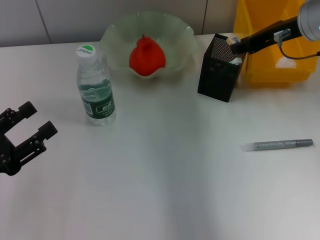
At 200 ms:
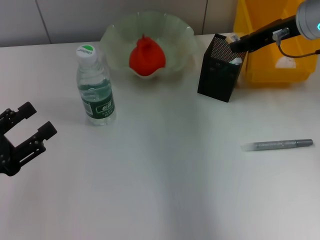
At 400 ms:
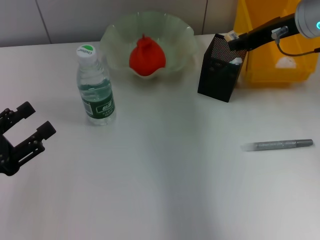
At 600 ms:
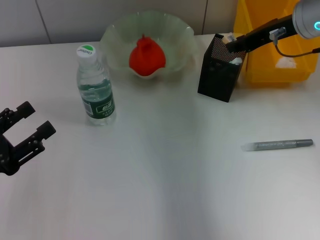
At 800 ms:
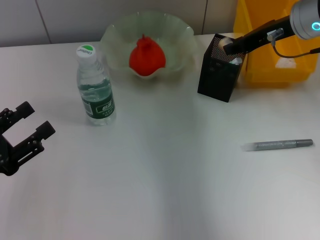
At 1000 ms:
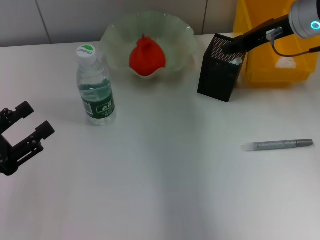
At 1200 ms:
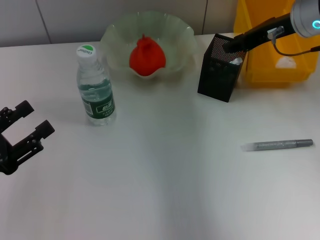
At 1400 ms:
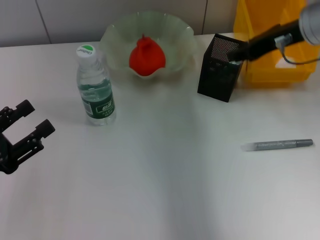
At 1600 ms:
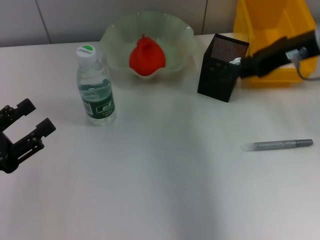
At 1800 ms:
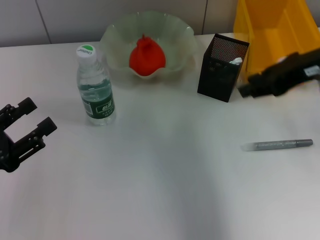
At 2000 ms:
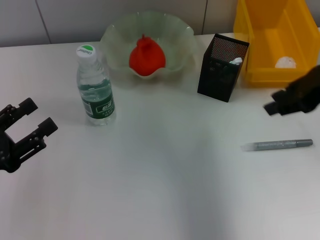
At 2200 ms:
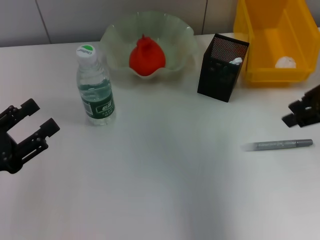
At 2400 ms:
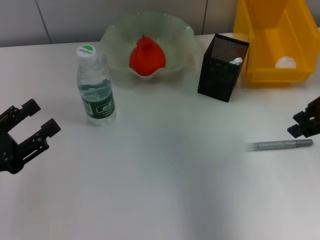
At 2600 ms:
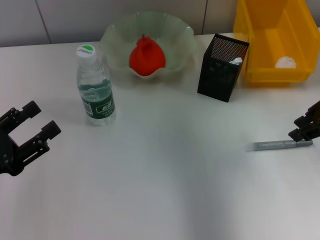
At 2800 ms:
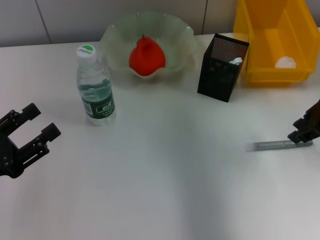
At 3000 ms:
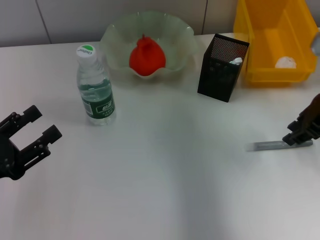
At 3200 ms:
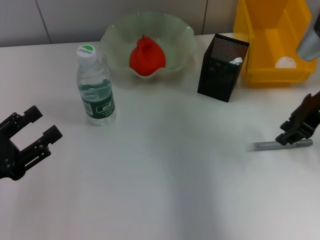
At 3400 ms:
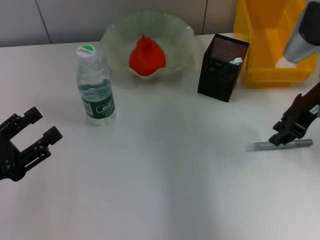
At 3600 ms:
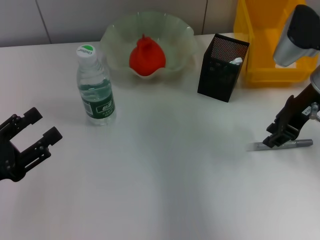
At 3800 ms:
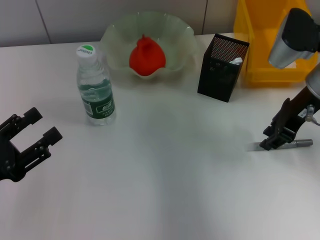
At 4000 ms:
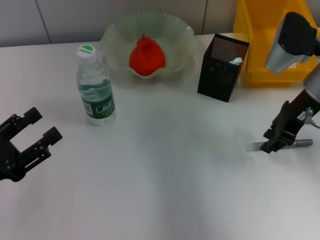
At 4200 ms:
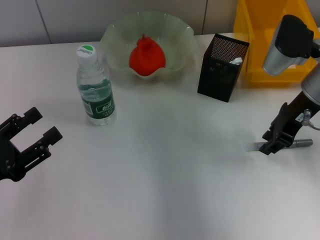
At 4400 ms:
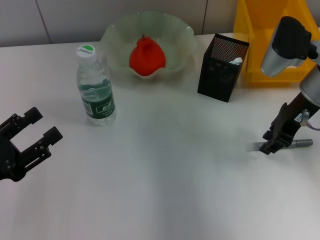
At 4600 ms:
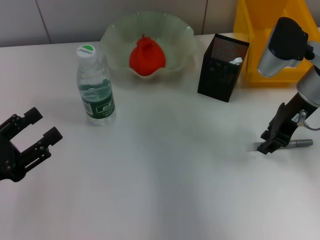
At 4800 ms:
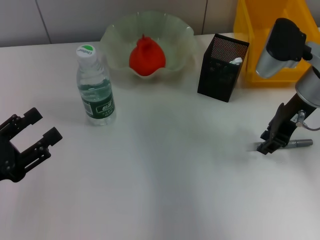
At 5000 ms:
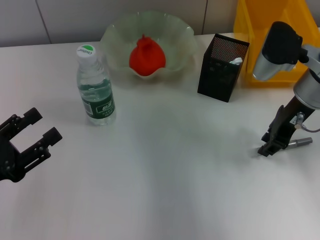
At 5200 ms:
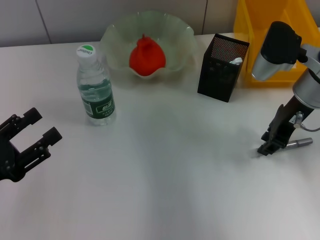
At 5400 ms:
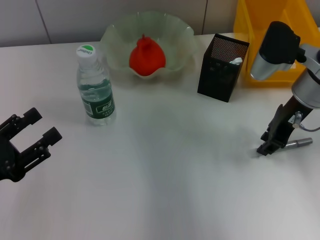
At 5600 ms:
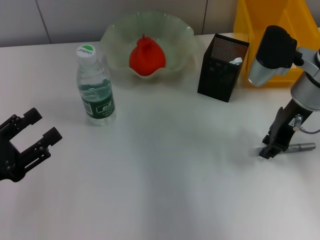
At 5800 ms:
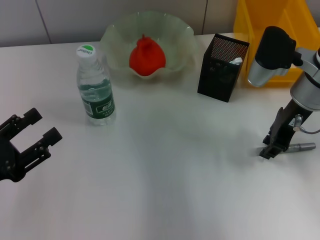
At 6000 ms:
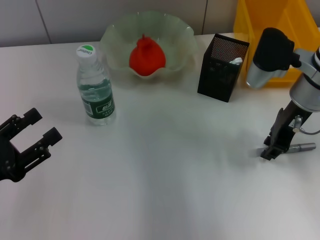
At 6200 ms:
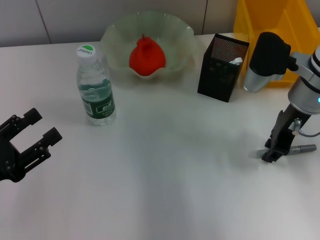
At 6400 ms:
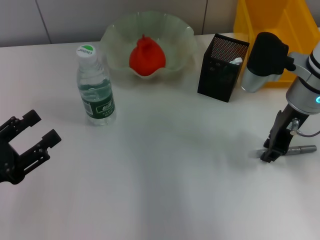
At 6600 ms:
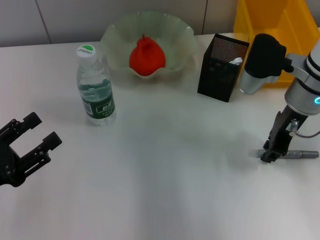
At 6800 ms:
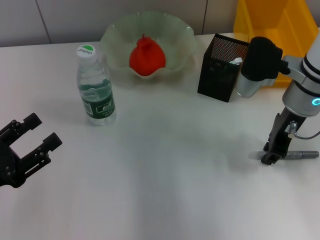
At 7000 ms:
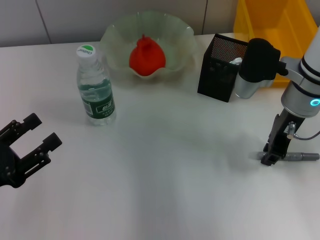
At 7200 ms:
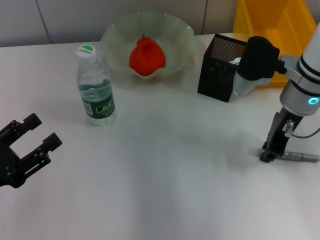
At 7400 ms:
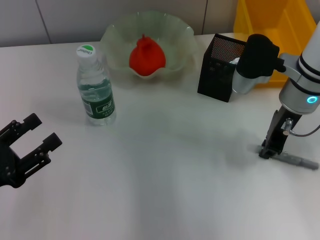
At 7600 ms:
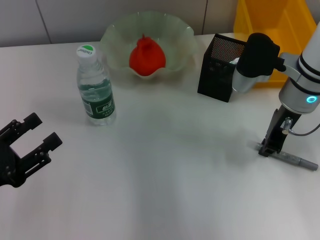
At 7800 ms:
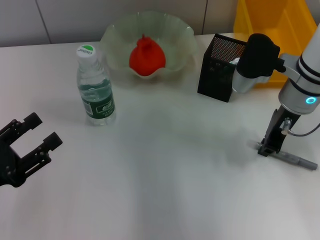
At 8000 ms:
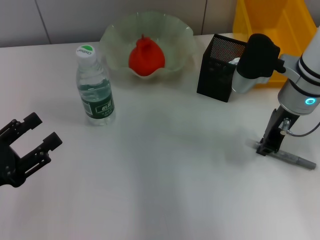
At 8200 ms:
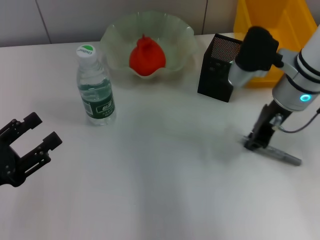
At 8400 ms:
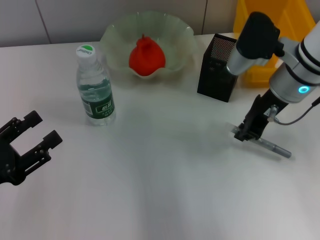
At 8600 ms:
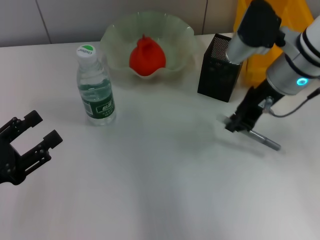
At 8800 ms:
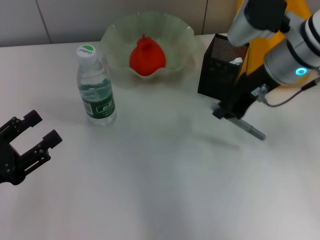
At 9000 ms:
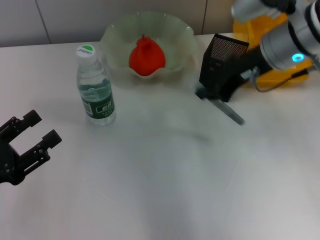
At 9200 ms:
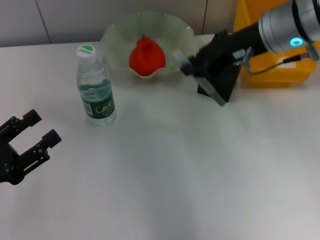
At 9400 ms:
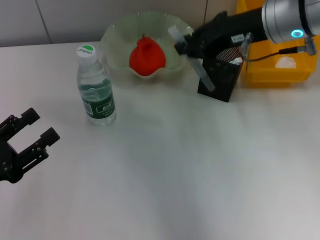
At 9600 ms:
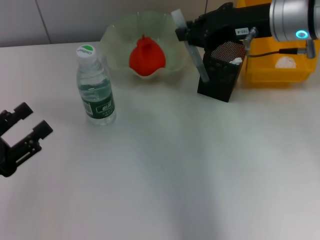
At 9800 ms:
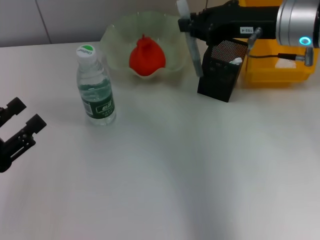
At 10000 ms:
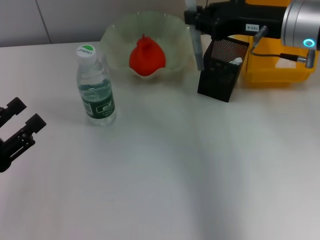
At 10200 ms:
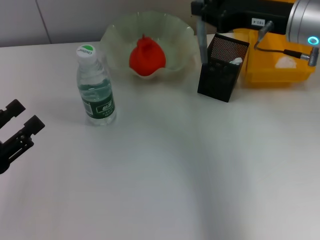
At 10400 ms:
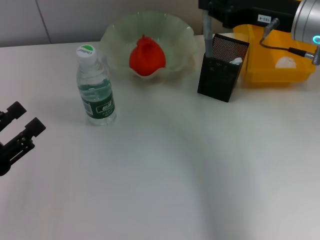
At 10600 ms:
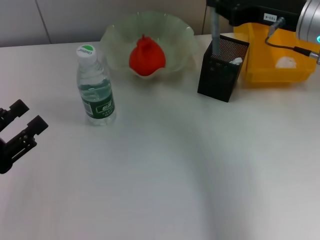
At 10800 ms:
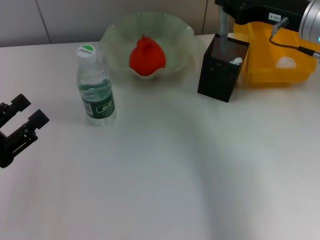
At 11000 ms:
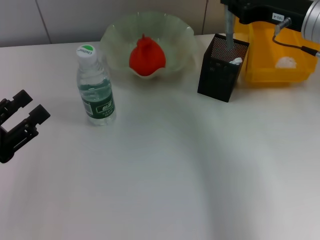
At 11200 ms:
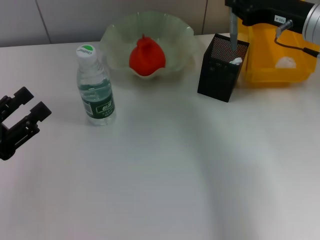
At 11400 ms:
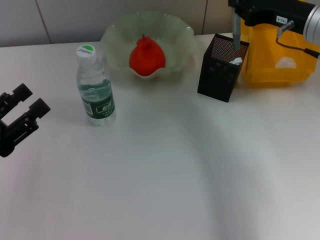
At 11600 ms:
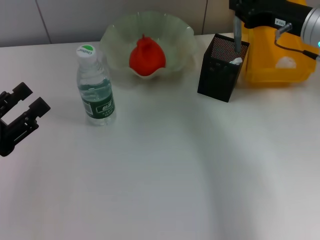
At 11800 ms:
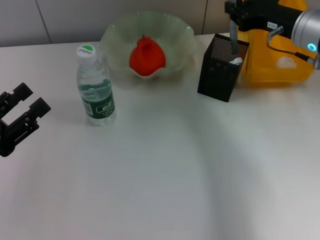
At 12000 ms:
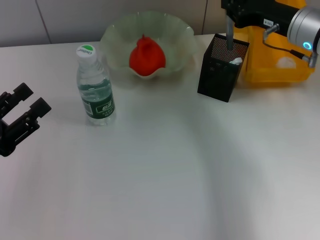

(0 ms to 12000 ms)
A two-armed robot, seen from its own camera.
Step, 1600 ms - 7600 ms: Grab the gray glue with the right hand.
0 ms - 1600 ms: The right gripper heads backward, covering about 5 cm.
1600 ms - 3000 ms: The right gripper changes place by roughly 5 cm.
3000 ms - 4400 ms: The right gripper ends up approximately 5 cm from where it was.
4400 ms - 7600 ms: There are only small adjustments of the grippers.
7600 ms - 9000 ms: The right gripper shifts roughly 5 cm upward.
10400 ms - 12000 ms: The right gripper ends up approximately 5 cm from where it was.

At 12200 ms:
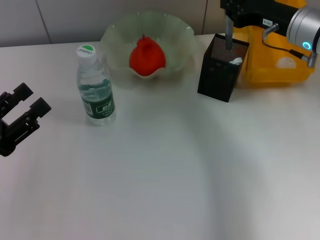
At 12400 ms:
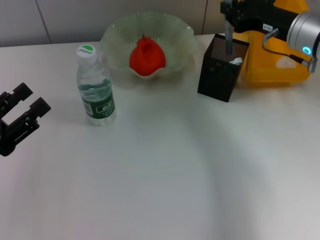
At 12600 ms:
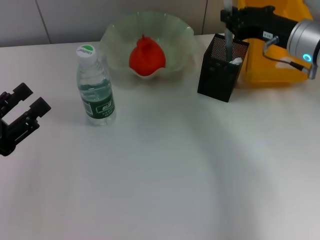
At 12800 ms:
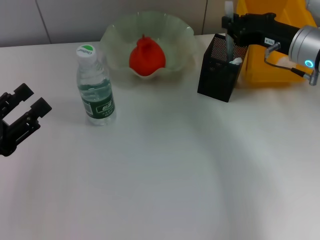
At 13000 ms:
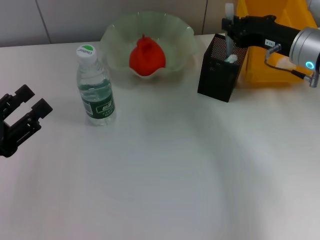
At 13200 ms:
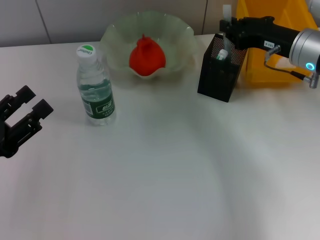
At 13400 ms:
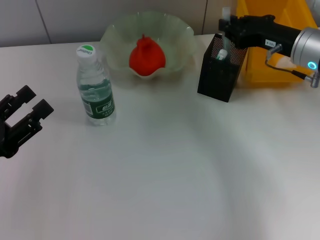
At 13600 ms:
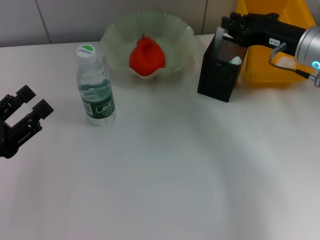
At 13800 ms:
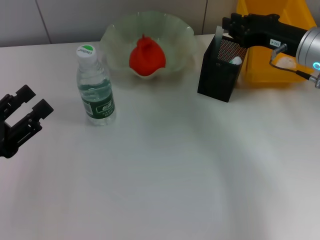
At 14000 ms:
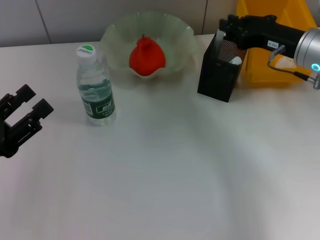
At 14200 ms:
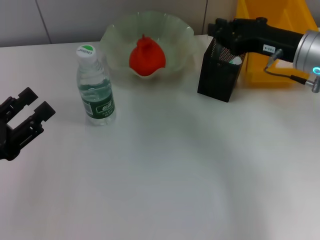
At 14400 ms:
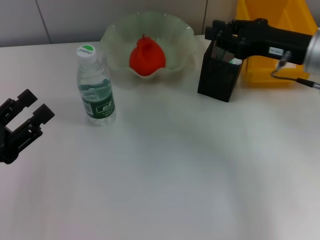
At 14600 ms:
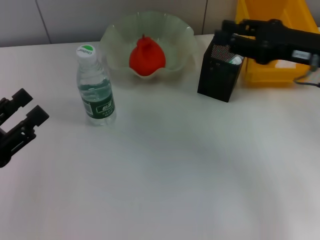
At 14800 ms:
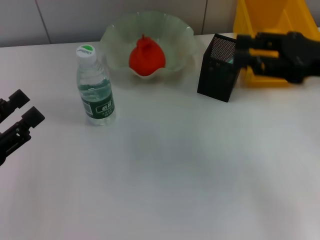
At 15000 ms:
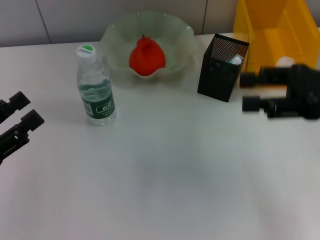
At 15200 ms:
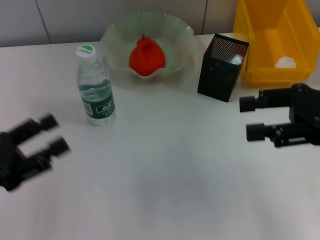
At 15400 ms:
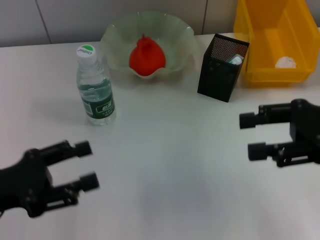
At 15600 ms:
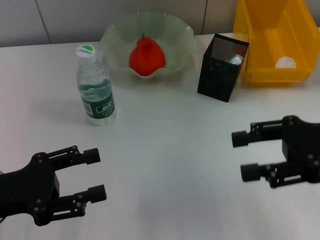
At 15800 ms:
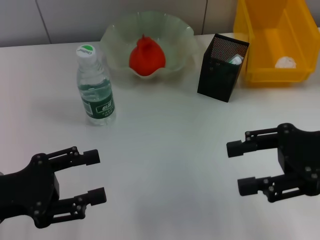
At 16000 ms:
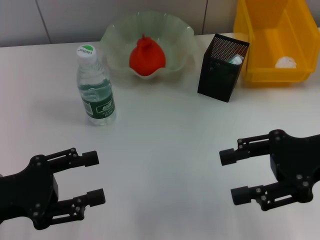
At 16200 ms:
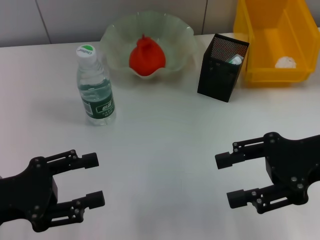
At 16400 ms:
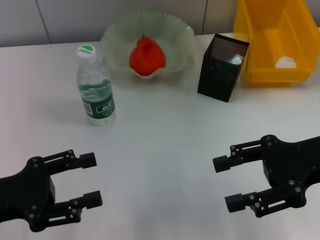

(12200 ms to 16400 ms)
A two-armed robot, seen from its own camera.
Step, 12200 ms - 14600 ms: Place the gray glue into the pen holder with the right hand.
12200 ms - 13600 ms: The grippers move only a little.
13600 ms - 15000 ms: The right gripper shifts some 10 cm backward, and opens up.
15000 ms - 16400 ms: The right gripper ends up about 5 cm from where it was.

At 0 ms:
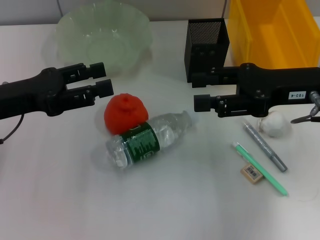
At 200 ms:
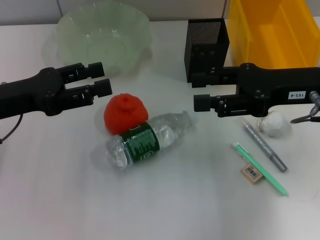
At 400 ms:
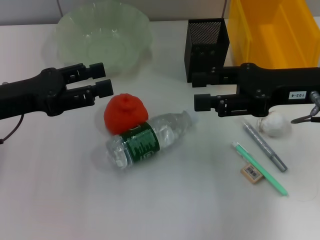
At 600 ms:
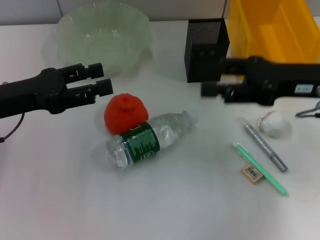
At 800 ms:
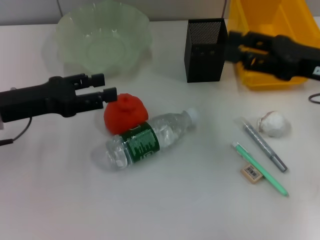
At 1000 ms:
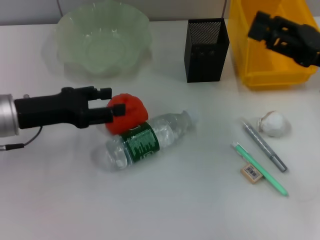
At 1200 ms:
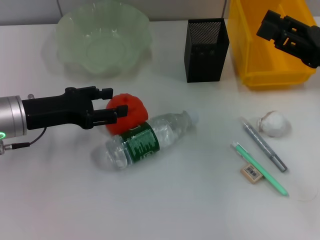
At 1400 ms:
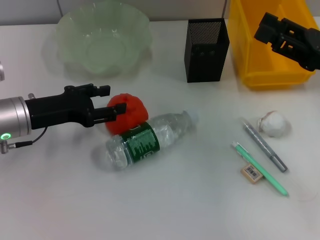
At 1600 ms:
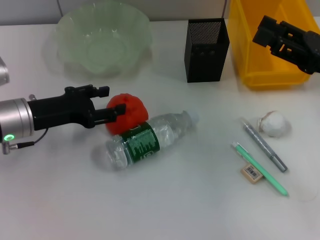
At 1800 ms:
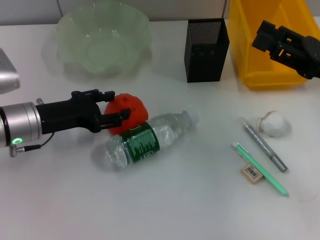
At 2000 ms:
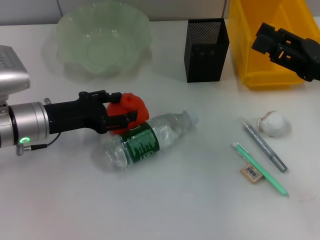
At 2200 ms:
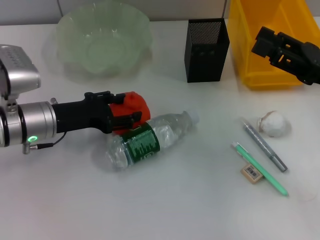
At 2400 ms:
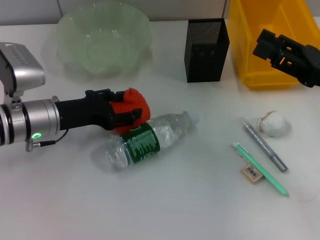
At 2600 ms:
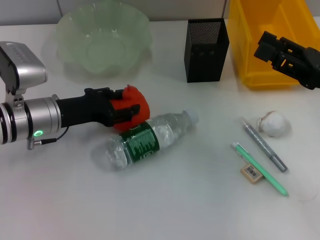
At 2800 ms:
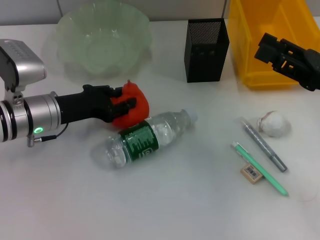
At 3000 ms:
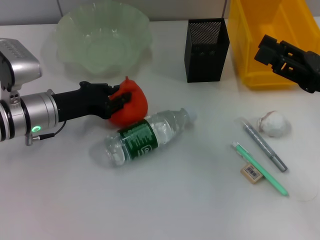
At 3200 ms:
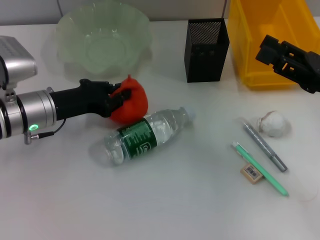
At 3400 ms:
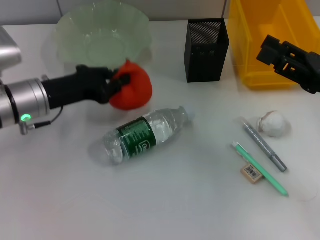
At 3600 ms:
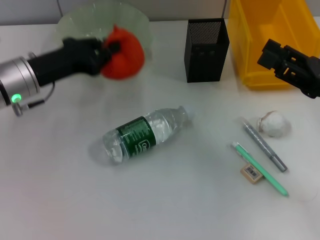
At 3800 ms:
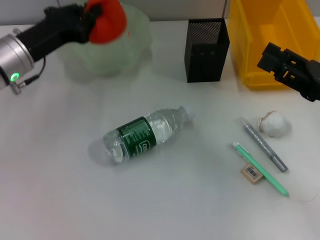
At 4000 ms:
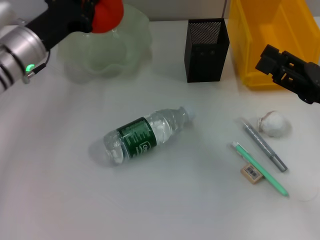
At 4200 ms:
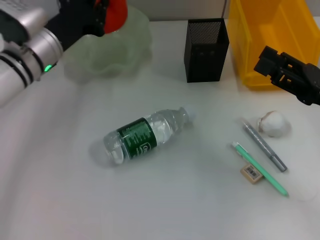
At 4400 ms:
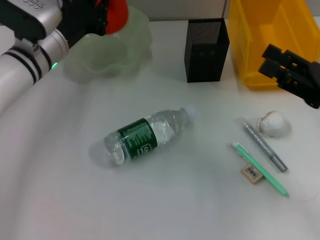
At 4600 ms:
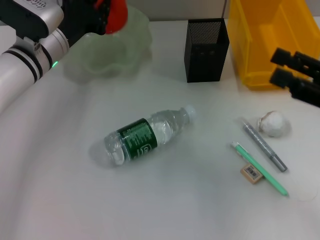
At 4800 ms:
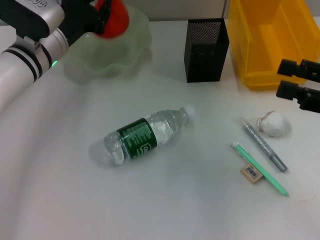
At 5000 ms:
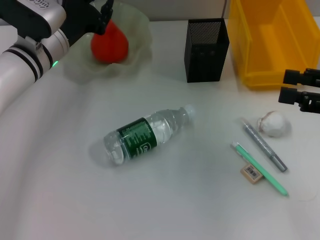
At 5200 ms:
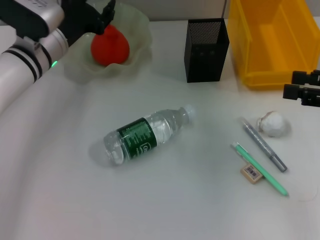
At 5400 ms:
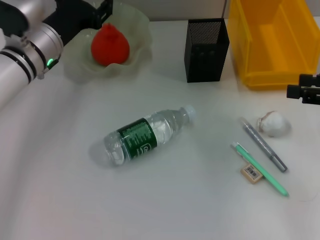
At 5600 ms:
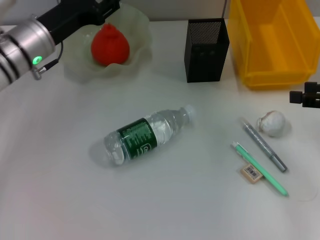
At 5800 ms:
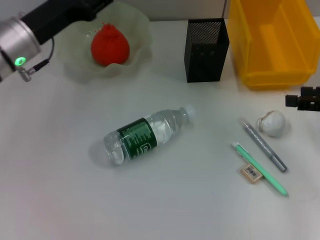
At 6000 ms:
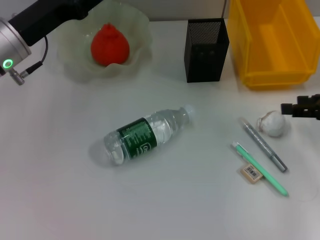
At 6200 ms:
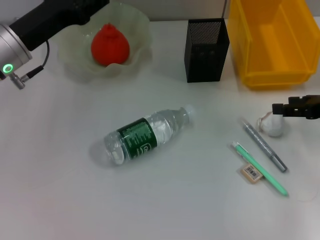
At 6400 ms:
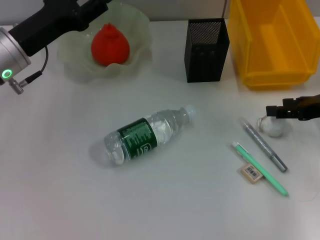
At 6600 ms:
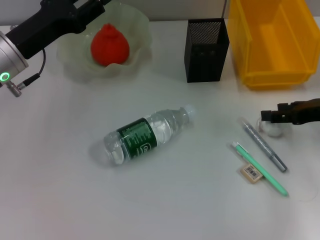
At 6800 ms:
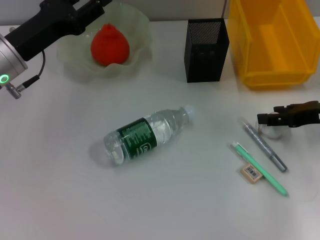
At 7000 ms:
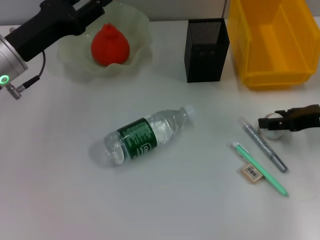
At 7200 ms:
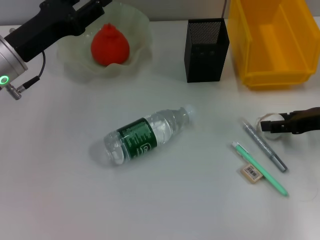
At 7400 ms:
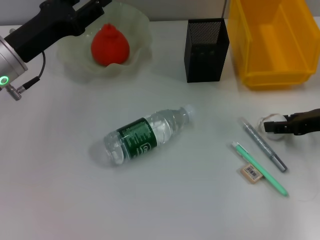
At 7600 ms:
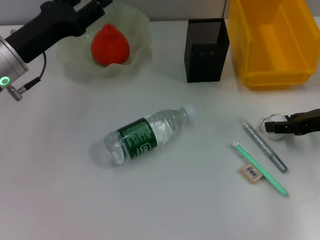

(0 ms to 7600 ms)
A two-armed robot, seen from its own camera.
Step, 0 ms - 3200 ms: Grab the orange with the left hand.
Step, 3400 ms - 5200 ms: Place the orange into the fruit bowl with the left hand.
0 ms - 1600 ms: The left gripper heads downward, covering some 5 cm. The right gripper shifts roughly 5 cm to the right.
1600 ms - 3000 ms: The left gripper closes up.
3000 ms - 4600 ms: The left gripper heads forward, covering approximately 5 cm, and closes up.
4600 ms - 6000 ms: The left gripper shifts by some 10 cm, and opens. The right gripper goes about 5 cm forward.
6000 ms - 7600 ms: The grippers stay close to where they were, moving slightly.
